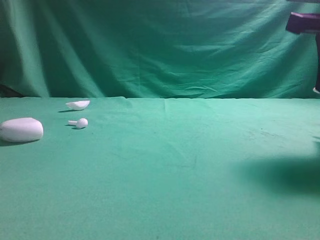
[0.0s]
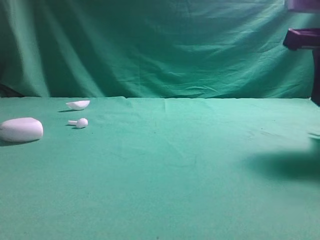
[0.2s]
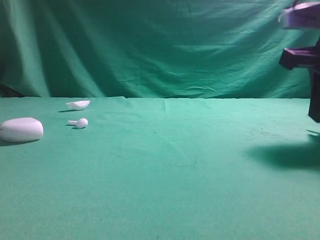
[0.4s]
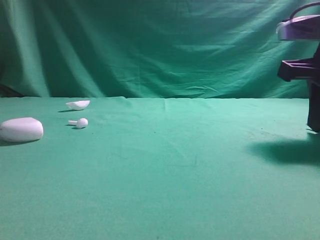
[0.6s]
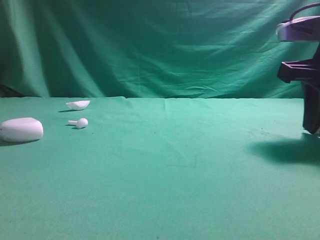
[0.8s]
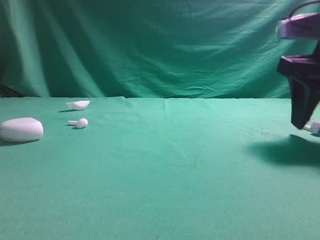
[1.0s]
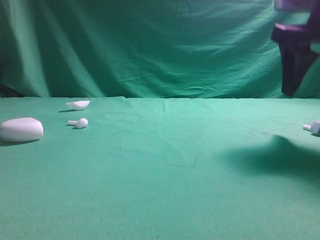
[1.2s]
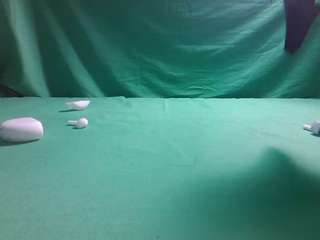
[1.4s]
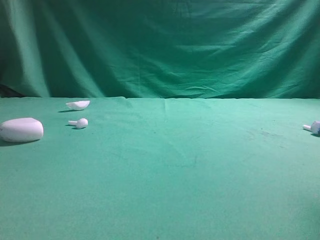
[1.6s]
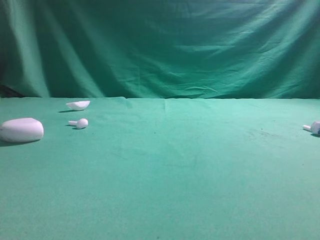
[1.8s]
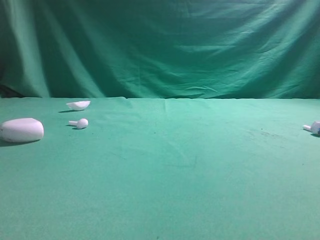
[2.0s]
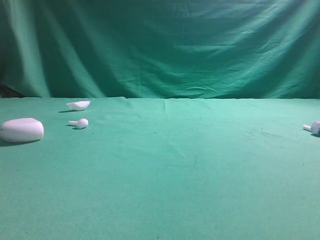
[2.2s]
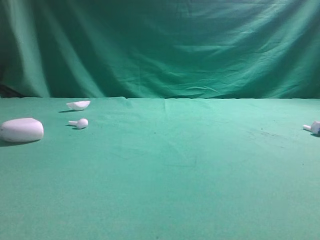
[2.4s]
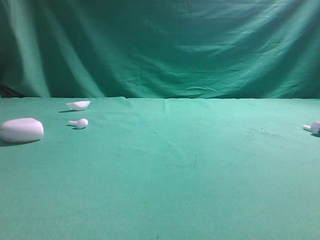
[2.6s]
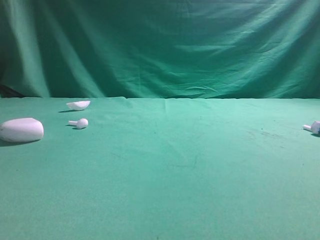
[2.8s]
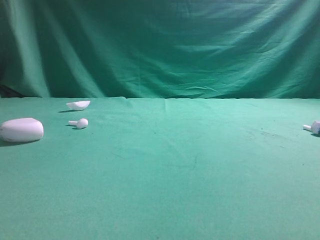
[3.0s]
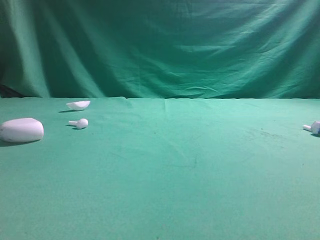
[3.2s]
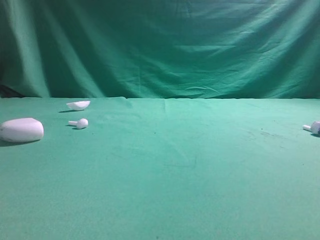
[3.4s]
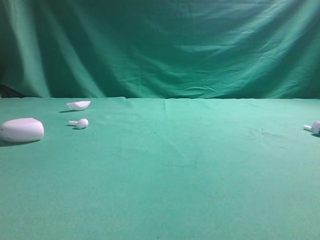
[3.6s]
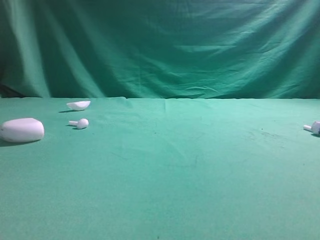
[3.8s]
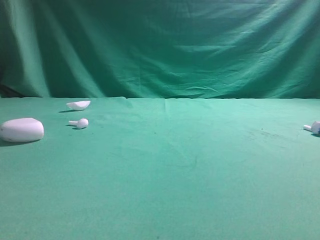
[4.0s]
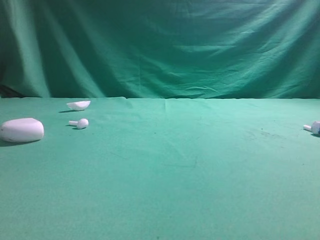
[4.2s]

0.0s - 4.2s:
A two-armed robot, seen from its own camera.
Step, 0.0s - 1.2s: Place bluetooth earbud on the right side of the table.

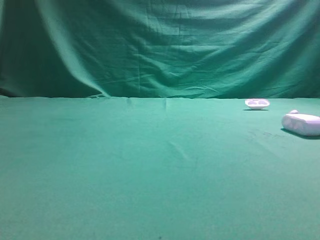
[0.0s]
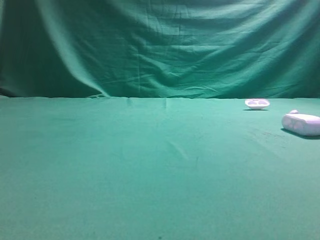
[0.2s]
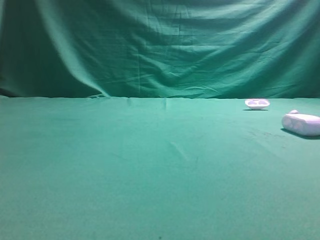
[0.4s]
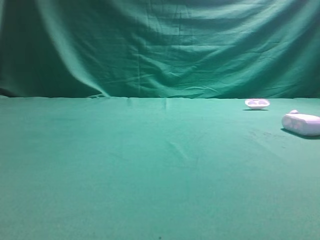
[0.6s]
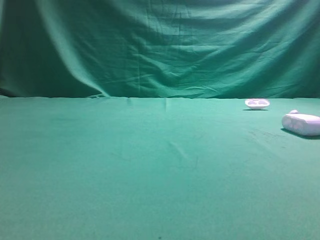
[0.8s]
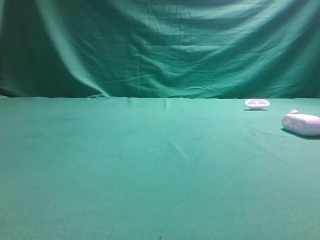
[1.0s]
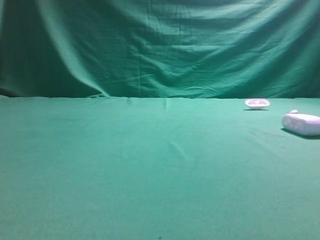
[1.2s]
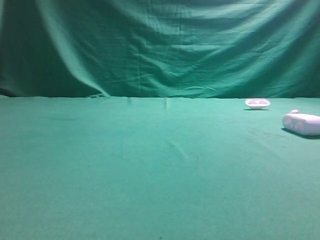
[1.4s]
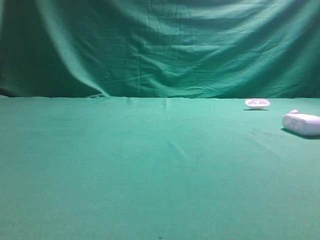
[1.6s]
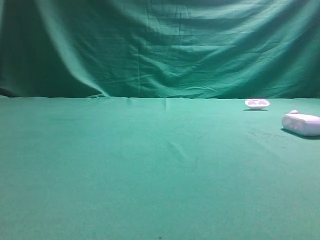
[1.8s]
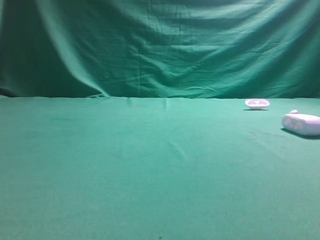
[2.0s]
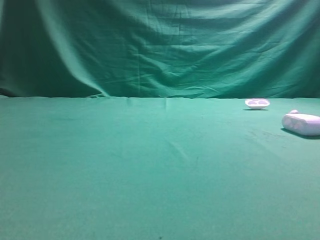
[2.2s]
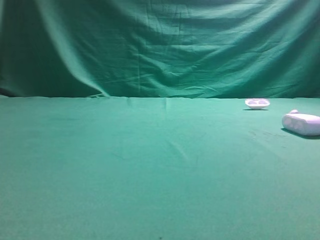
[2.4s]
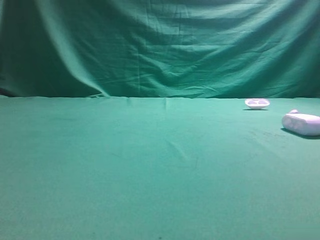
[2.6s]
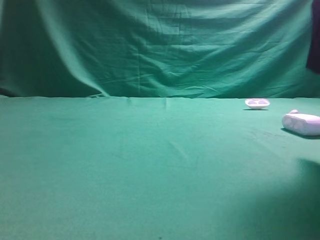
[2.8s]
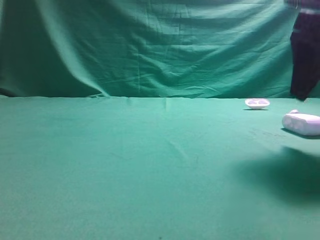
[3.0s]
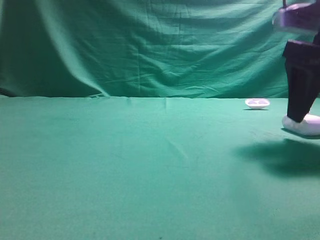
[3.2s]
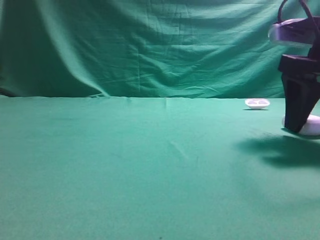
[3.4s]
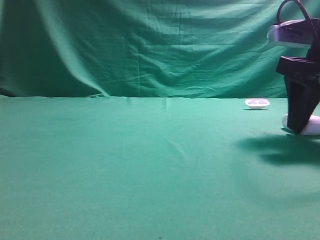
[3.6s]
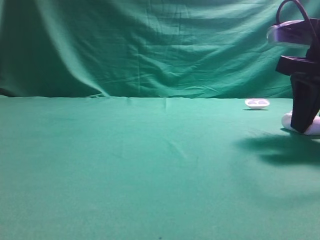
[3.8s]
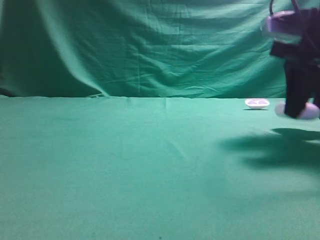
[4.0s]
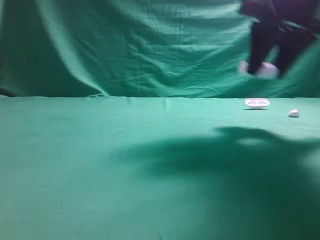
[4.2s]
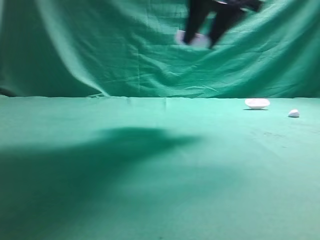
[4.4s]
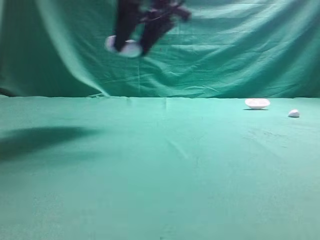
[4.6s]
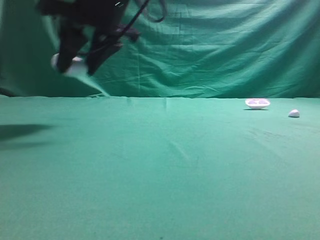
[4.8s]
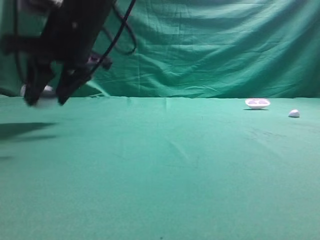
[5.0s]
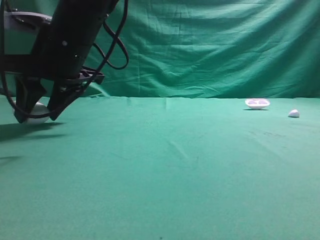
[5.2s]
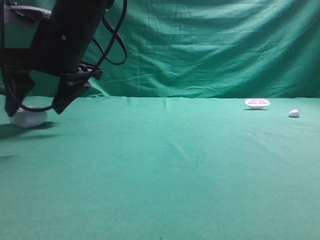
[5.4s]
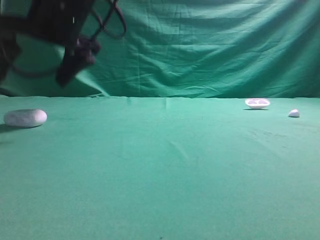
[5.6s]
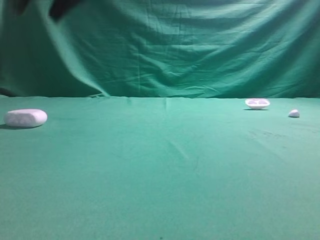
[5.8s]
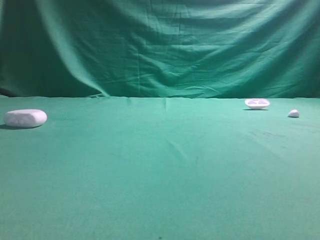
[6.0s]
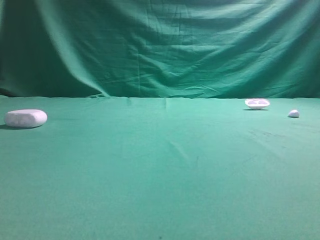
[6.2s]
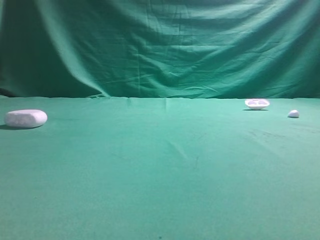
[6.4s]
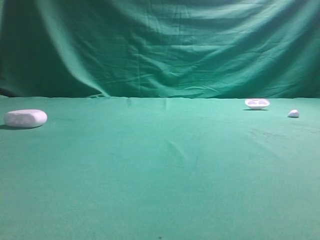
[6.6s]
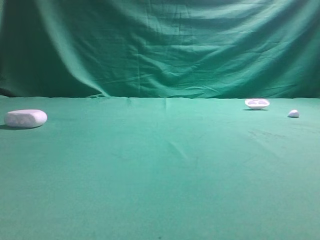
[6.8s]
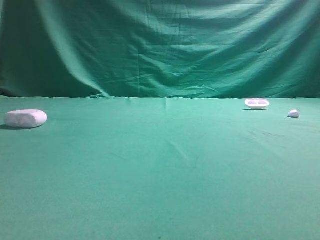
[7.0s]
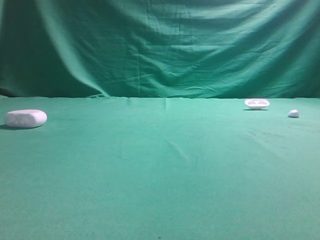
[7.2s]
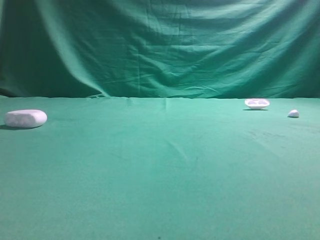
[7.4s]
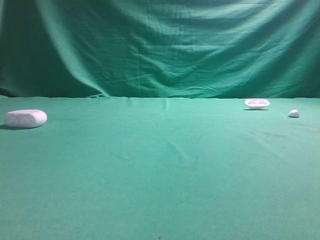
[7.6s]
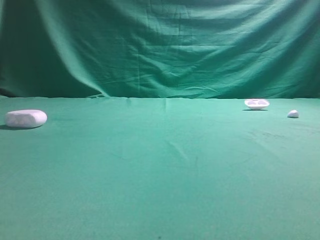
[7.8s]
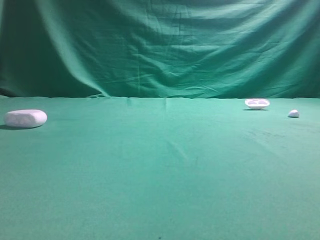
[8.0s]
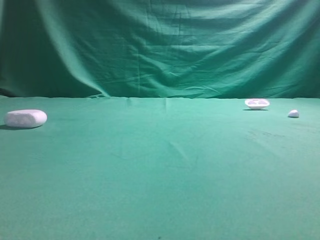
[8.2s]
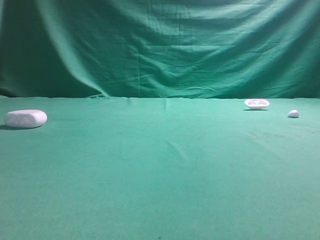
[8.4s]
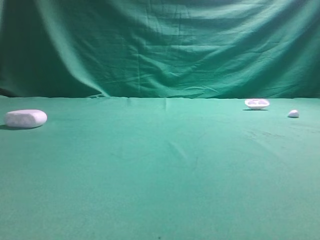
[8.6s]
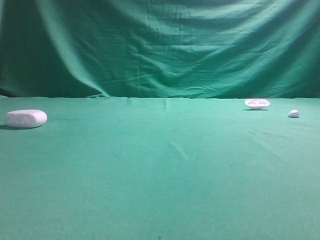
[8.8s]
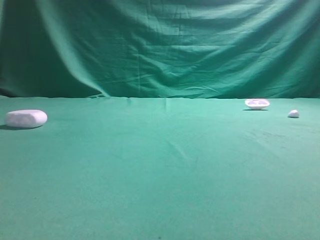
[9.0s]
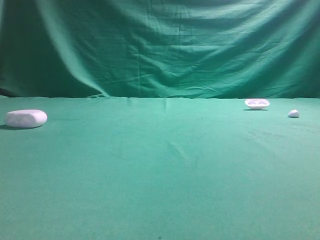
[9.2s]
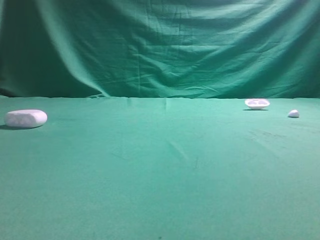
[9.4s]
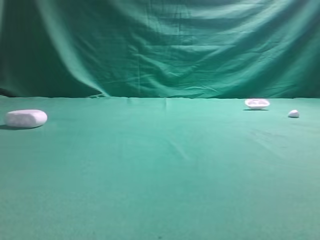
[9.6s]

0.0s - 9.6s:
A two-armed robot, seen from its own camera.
Step, 0.0s - 4.2s: Grasp the Bluetooth earphone case.
Step, 4.4s - 5.6s: Place bluetooth earphone case on the left side of the table.
